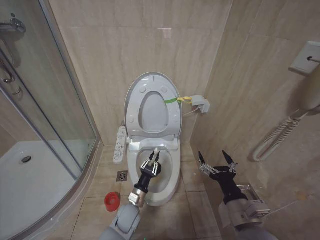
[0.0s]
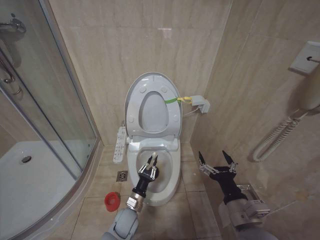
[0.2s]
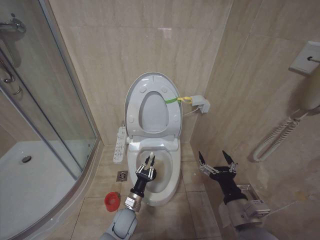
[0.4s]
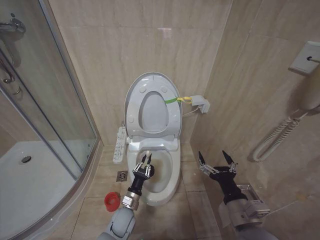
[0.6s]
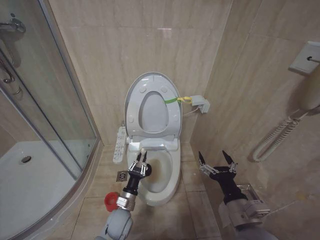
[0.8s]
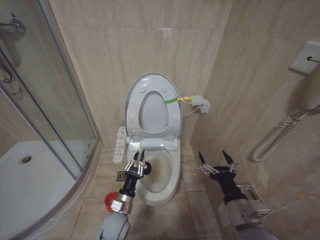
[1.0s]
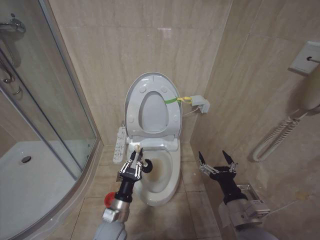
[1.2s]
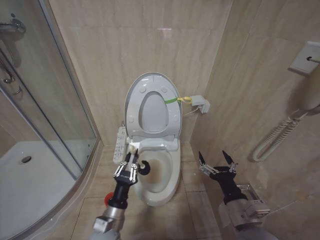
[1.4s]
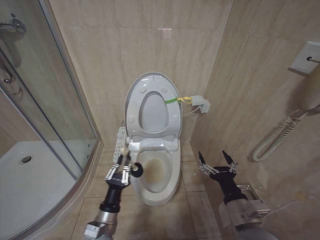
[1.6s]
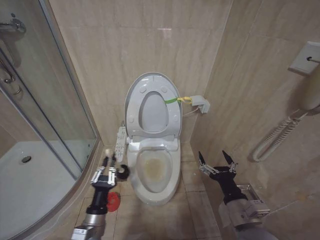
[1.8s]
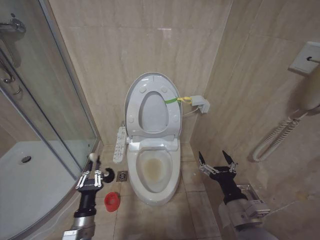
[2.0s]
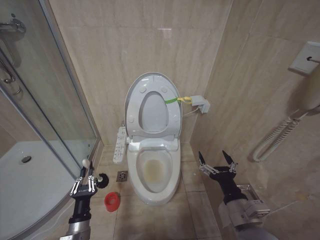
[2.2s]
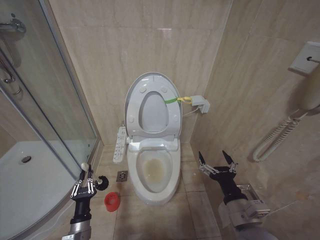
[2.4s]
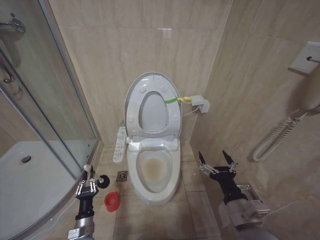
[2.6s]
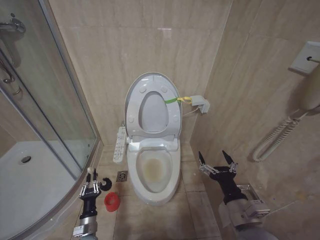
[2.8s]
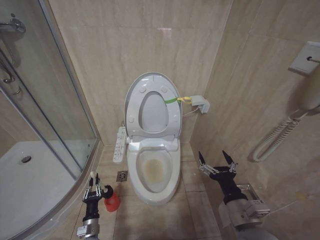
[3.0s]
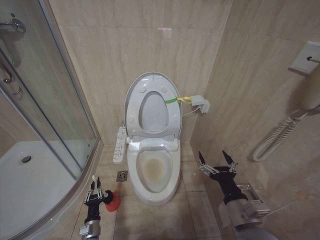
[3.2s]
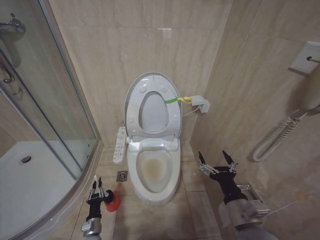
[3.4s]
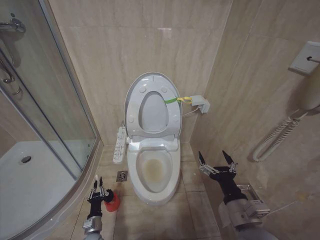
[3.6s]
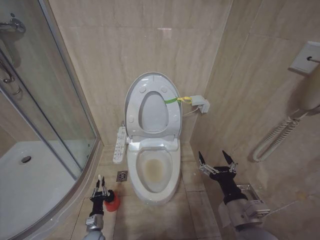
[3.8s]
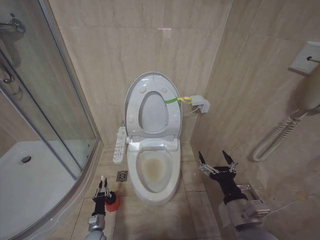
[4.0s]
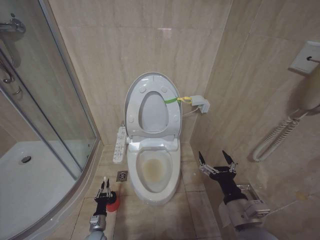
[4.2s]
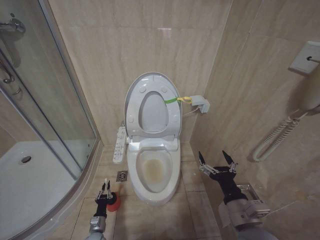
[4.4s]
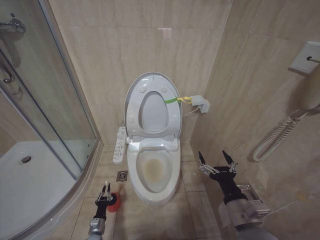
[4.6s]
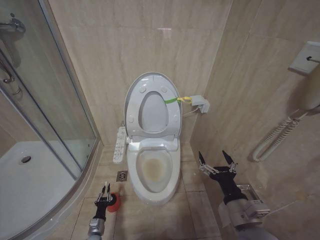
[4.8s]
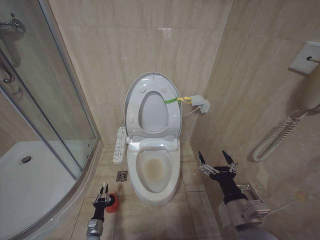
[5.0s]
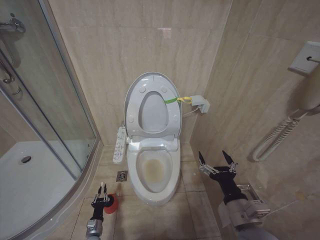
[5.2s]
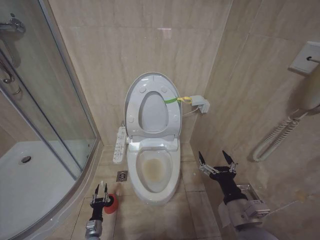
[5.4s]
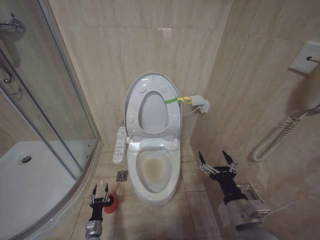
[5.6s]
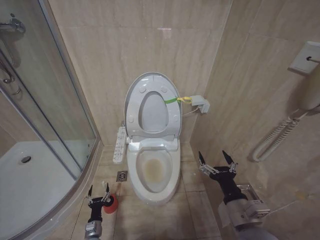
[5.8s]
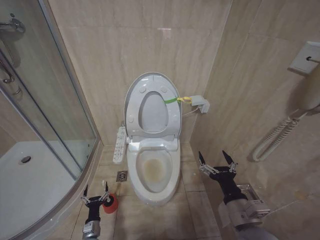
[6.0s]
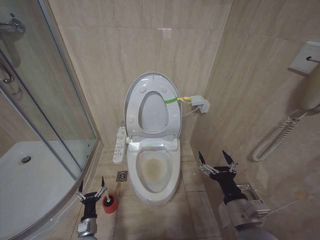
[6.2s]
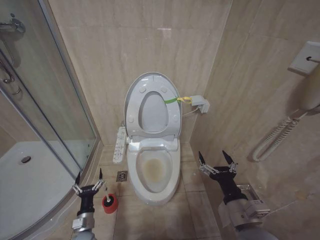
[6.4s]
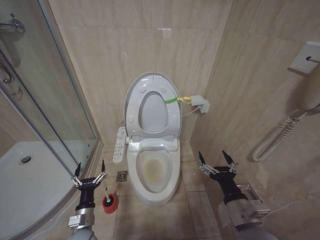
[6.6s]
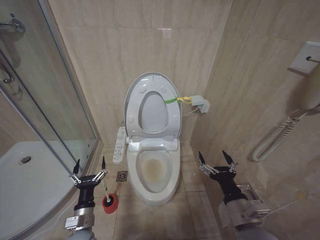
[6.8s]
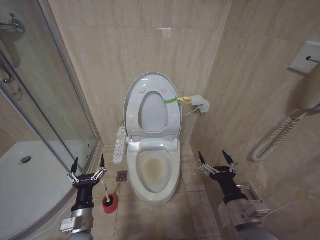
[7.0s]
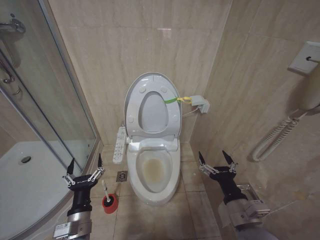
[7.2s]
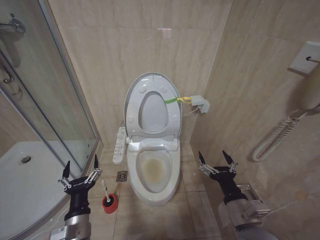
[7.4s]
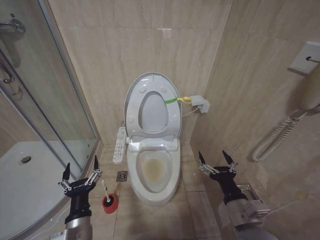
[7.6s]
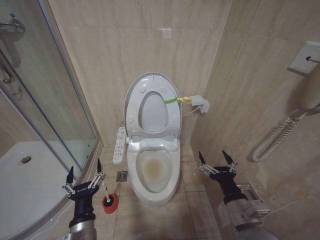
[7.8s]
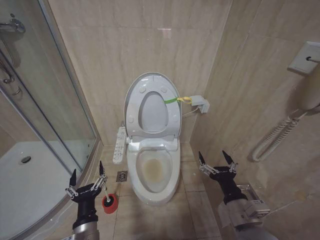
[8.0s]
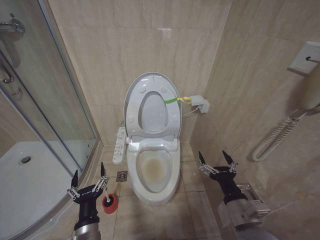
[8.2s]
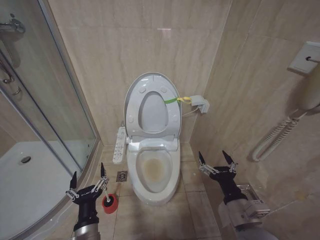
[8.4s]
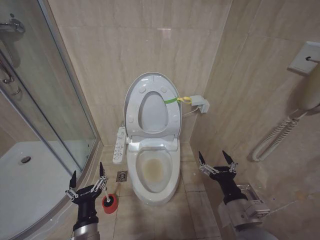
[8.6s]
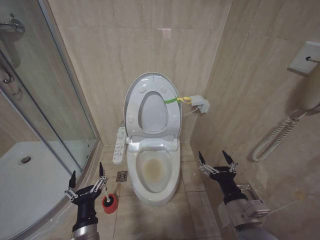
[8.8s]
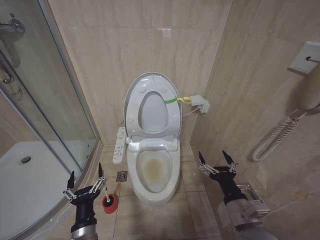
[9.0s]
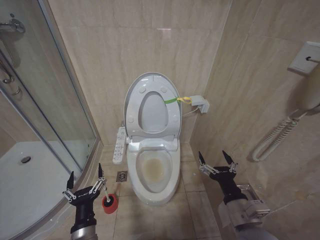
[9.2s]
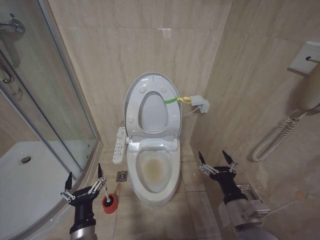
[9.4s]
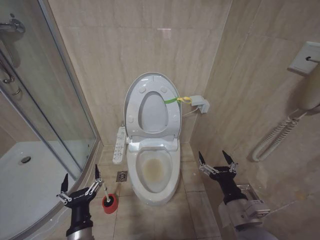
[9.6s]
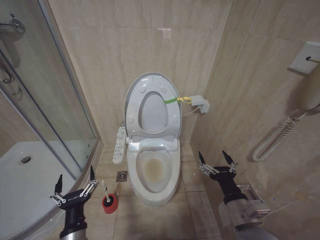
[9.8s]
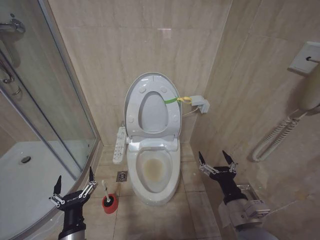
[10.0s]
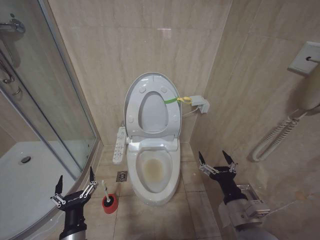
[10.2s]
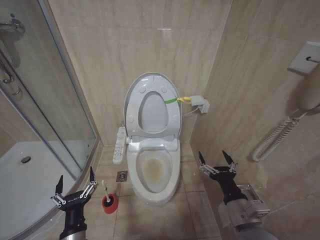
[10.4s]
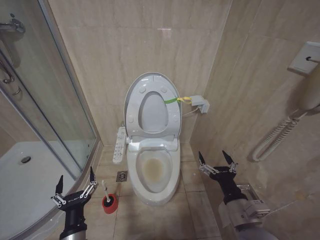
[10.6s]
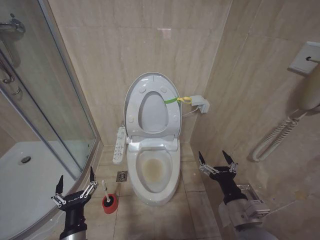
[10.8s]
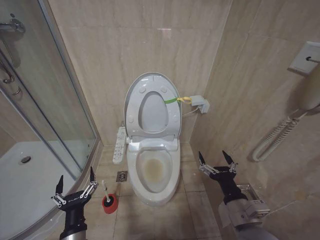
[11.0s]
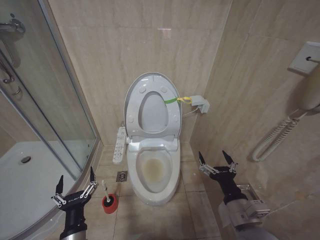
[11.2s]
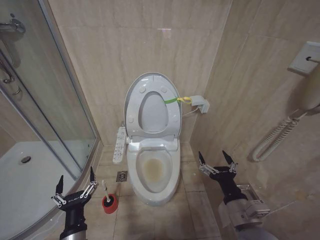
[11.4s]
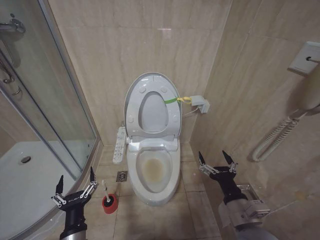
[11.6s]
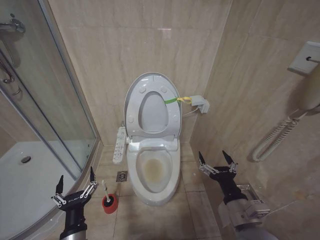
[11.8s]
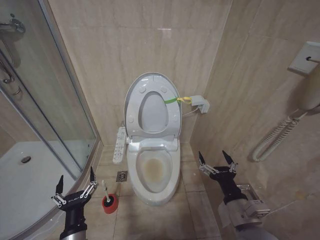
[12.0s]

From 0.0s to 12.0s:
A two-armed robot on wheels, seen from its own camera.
Task of the whole recording: Open the toilet lid, clean the toilet bowl with a toilet brush, close the toilet lid, and flush.
From 0.0s to 1.6s: The left gripper travels backward, upward and to the left by approximately 15 cm.
From 1.6s to 3.0s: The left gripper moves downward and to the left, about 20 cm.
From 3.0s to 4.4s: The left gripper moves downward, approximately 10 cm.
From 4.4s to 6.0s: The left gripper opens.
From 6.0s to 7.6s: The left gripper is displaced upward by about 30 cm.
From 7.6s to 10.4s: The grippers move only a little.
From 10.4s to 12.0s: Neither gripper changes place.

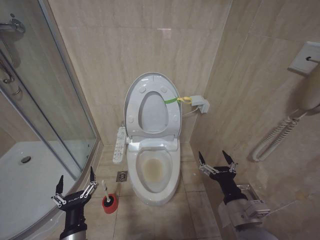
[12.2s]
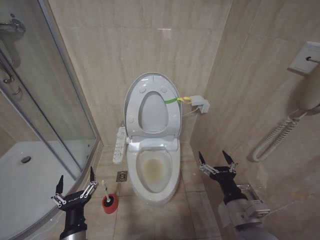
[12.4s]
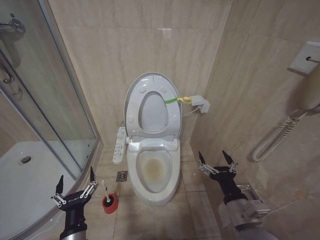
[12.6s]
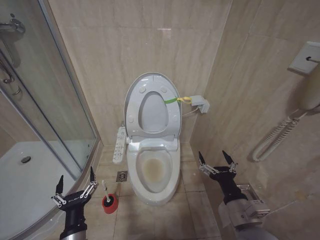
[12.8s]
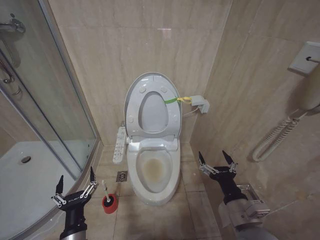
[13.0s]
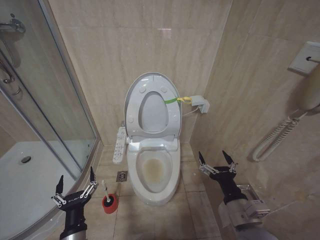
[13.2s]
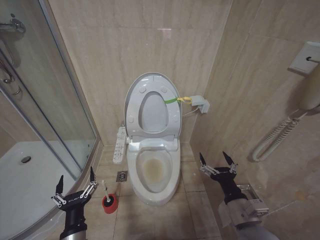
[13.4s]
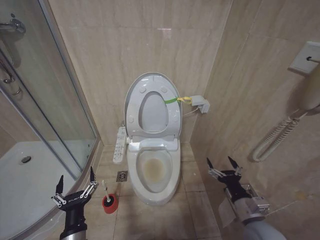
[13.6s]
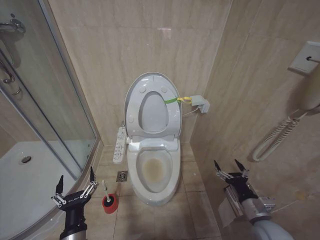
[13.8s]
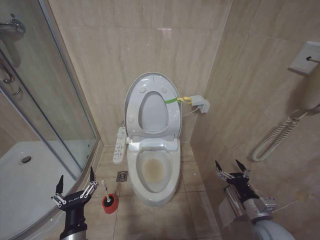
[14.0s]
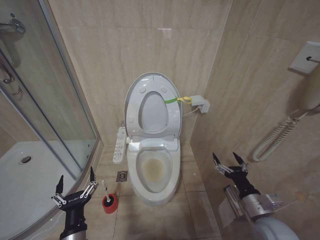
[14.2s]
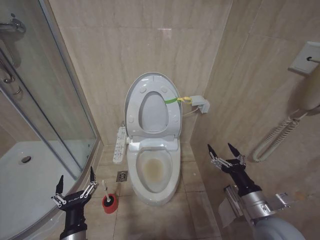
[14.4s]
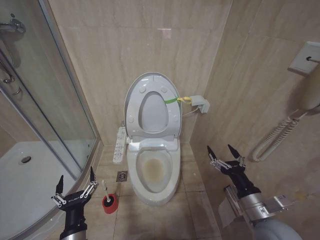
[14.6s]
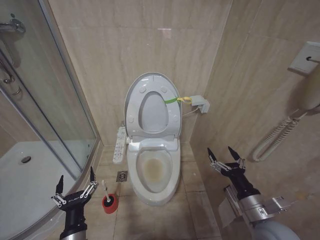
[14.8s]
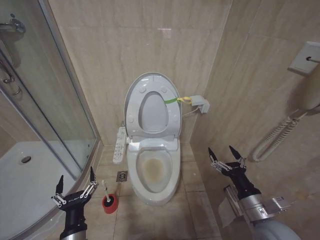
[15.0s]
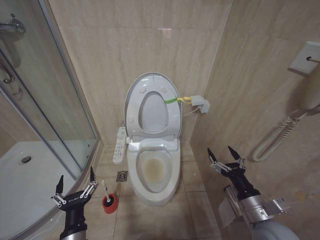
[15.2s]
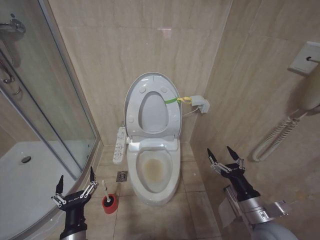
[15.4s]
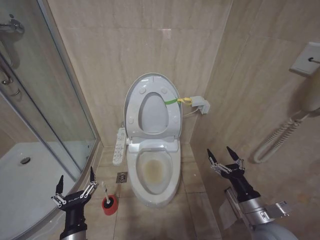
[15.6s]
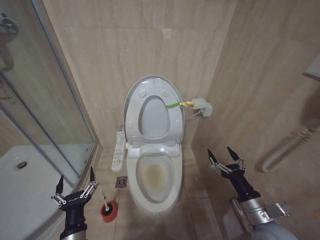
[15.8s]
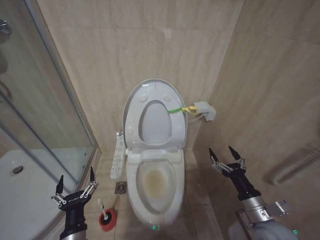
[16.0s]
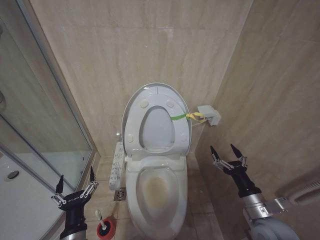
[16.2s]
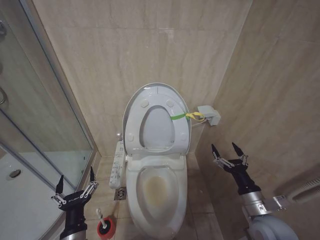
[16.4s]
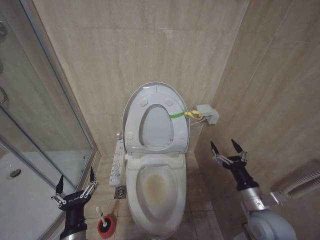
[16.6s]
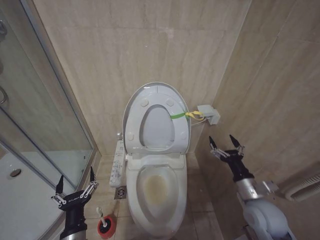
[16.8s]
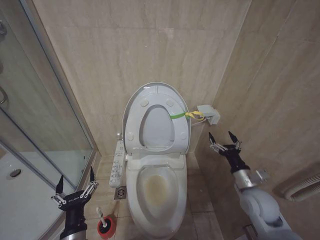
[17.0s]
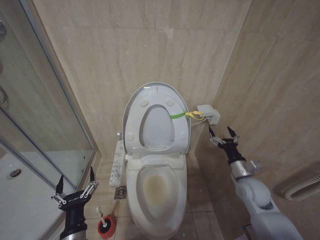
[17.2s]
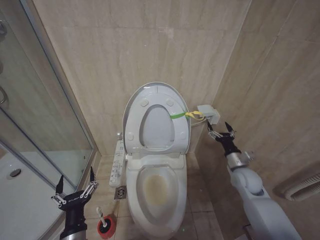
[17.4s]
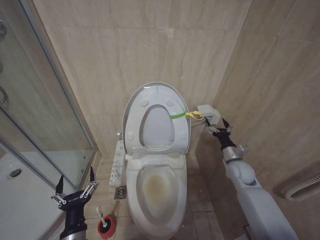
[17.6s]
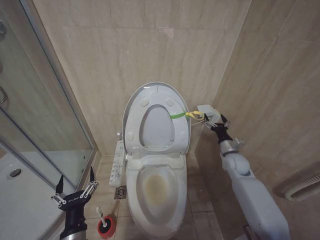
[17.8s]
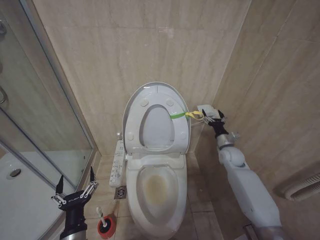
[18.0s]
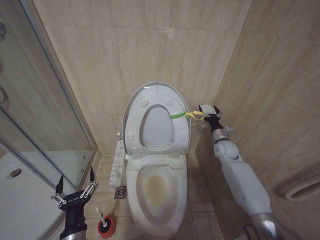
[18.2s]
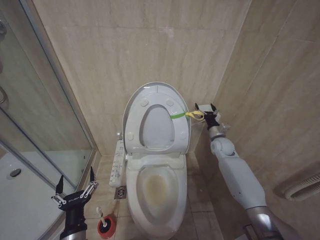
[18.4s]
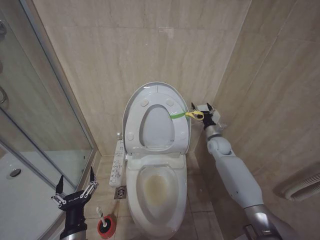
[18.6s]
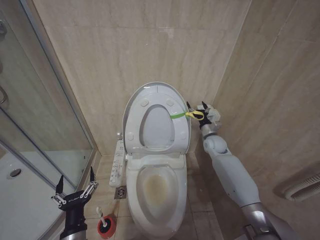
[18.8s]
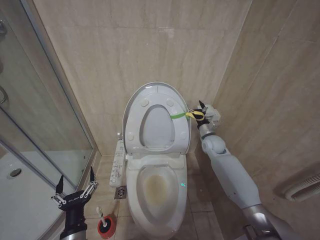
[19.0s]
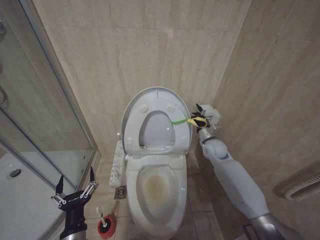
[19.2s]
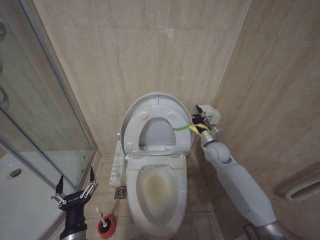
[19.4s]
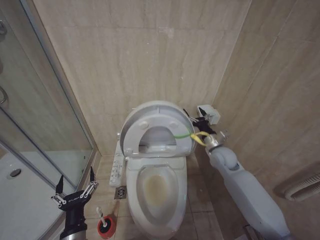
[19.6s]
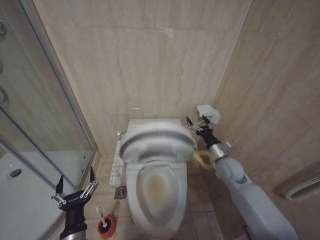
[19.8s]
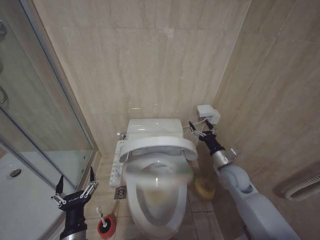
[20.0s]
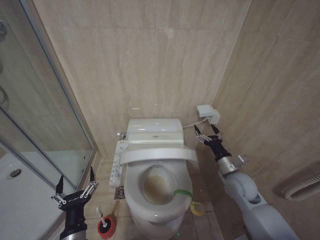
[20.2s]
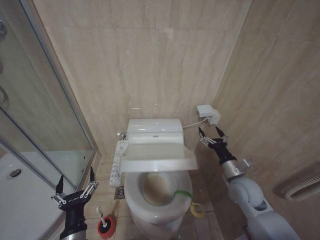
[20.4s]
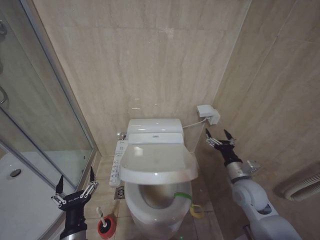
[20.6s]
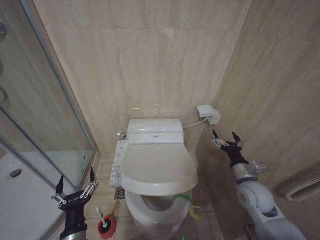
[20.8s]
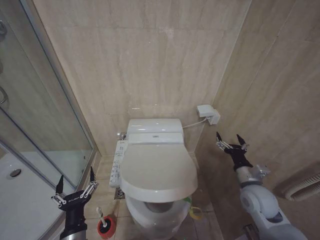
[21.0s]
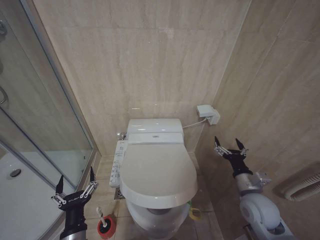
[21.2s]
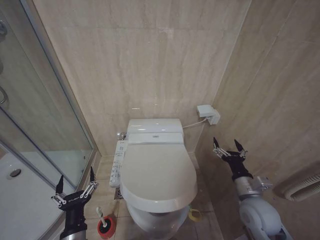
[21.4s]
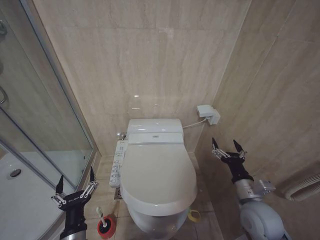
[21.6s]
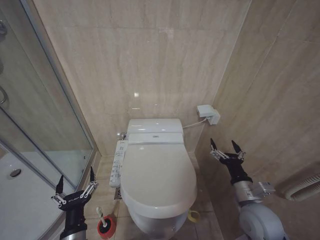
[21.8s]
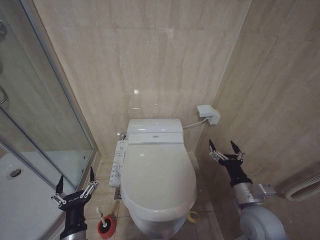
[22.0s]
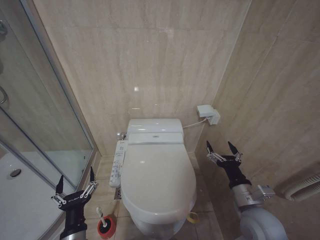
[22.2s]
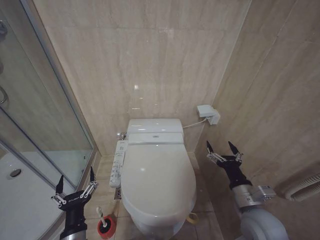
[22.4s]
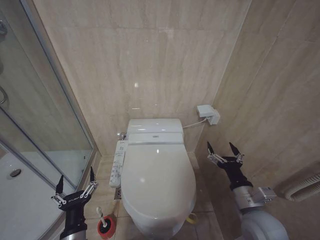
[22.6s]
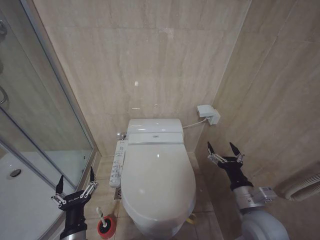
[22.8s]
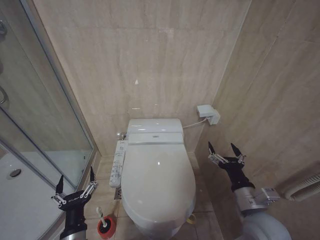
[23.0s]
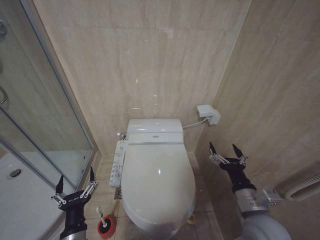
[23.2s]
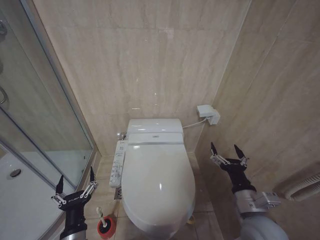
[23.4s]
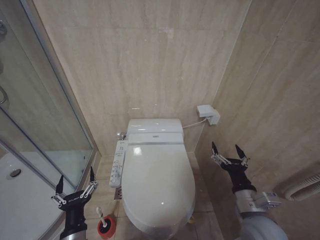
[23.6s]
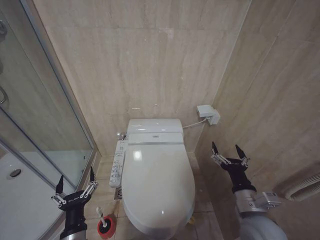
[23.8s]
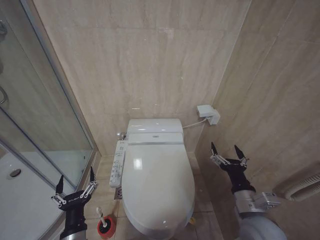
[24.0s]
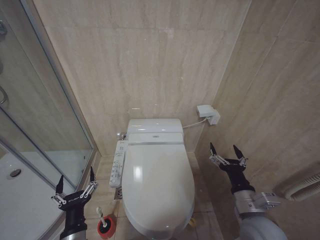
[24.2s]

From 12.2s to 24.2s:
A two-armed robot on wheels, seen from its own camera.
Task of the whole recording: Open the toilet lid, clean the toilet bowl with a toilet brush, close the toilet lid, and flush.
From 12.2s to 13.8s: The right gripper heads to the right and downward, covering roughly 15 cm.
From 13.8s to 15.2s: The right gripper is displaced upward by approximately 5 cm.
From 15.2s to 16.6s: The grippers make only small movements.
From 16.6s to 18.2s: The right gripper heads forward, covering about 30 cm.
From 18.2s to 19.8s: The right gripper heads backward and to the left, covering some 10 cm.
From 19.8s to 21.2s: The right gripper moves backward, some 15 cm.
From 21.2s to 22.6s: The right gripper heads backward, covering roughly 5 cm.
From 22.6s to 24.2s: The grippers make only small movements.
